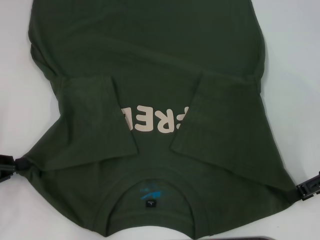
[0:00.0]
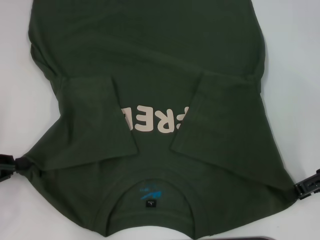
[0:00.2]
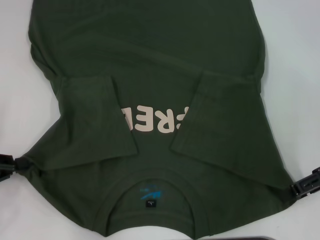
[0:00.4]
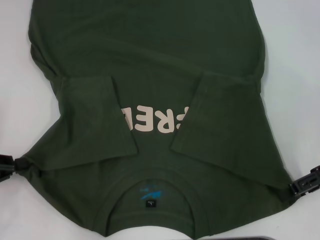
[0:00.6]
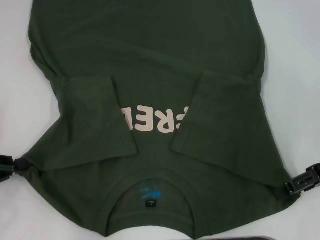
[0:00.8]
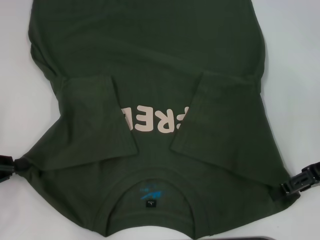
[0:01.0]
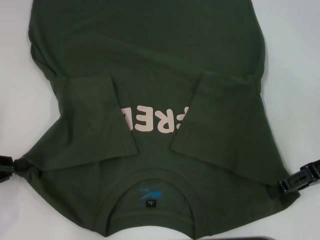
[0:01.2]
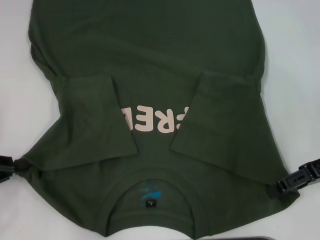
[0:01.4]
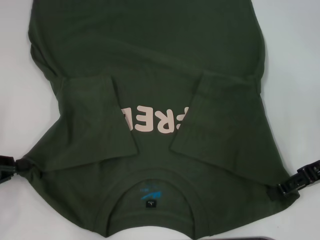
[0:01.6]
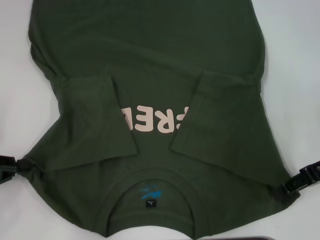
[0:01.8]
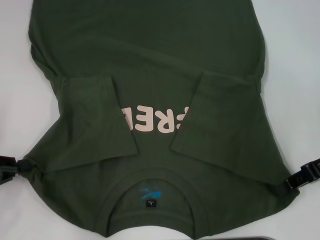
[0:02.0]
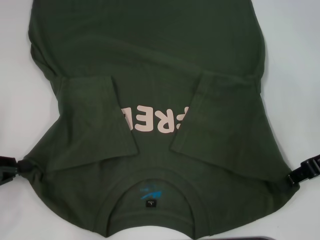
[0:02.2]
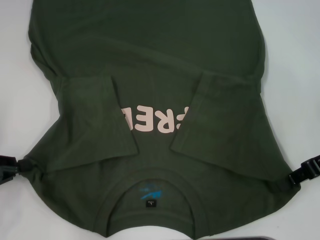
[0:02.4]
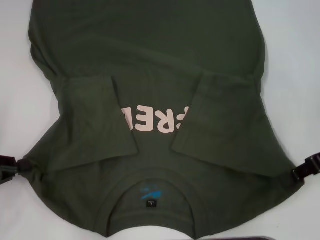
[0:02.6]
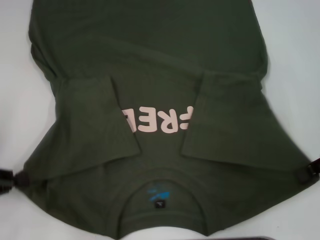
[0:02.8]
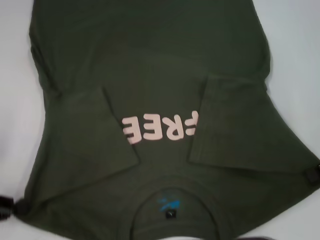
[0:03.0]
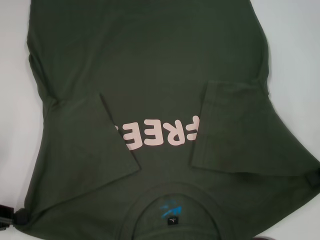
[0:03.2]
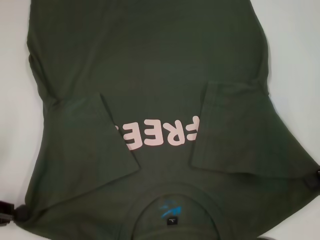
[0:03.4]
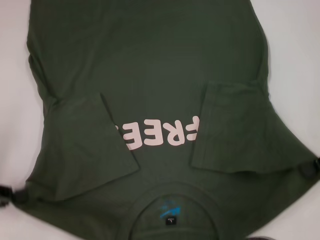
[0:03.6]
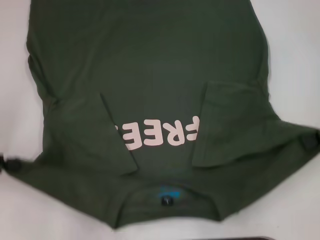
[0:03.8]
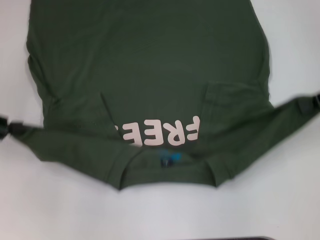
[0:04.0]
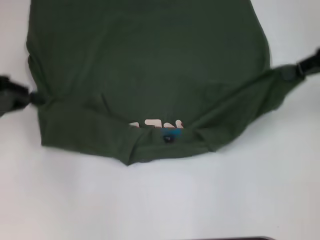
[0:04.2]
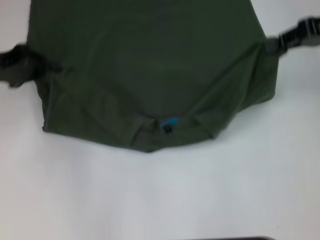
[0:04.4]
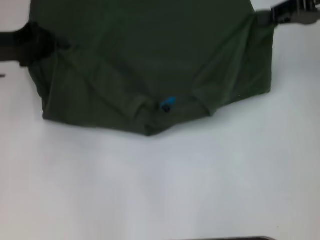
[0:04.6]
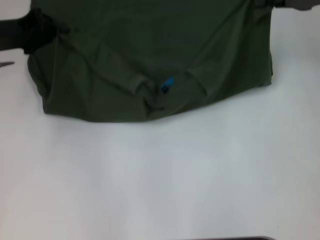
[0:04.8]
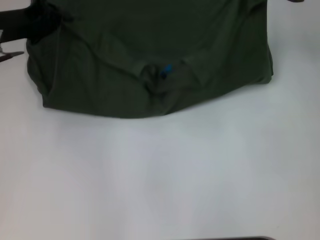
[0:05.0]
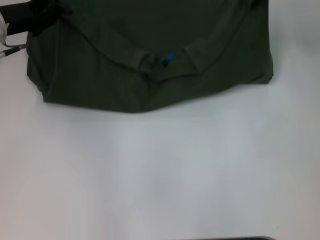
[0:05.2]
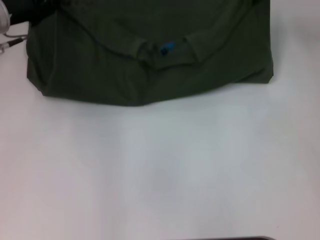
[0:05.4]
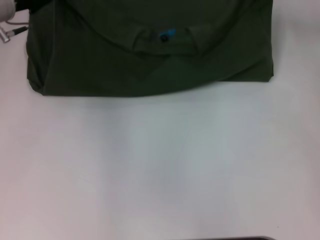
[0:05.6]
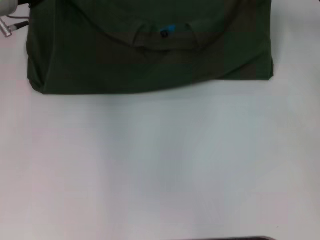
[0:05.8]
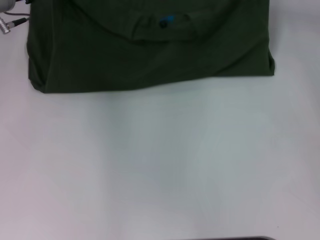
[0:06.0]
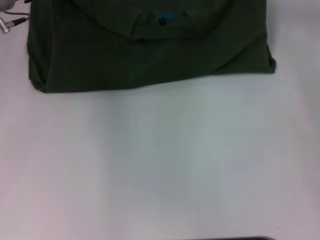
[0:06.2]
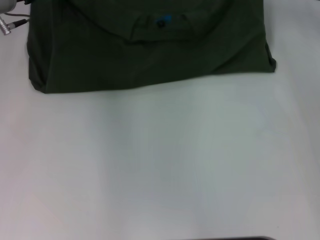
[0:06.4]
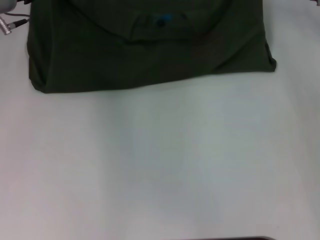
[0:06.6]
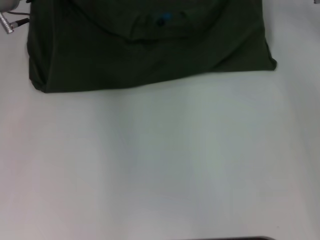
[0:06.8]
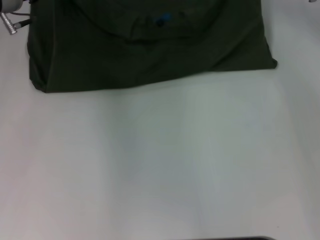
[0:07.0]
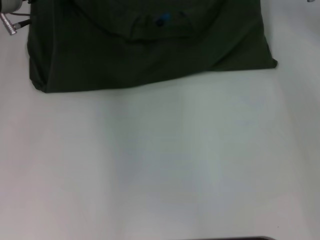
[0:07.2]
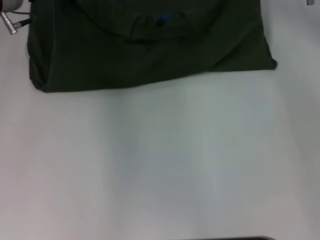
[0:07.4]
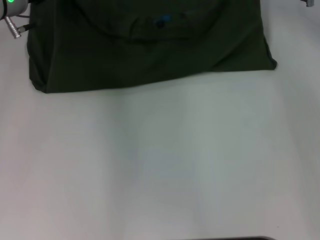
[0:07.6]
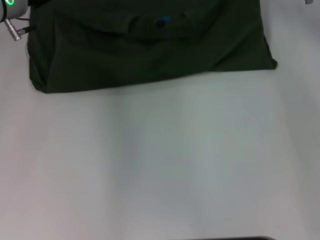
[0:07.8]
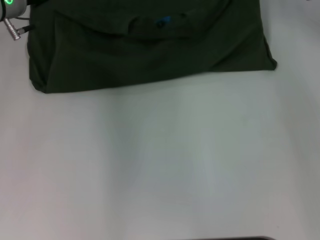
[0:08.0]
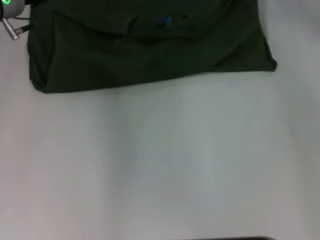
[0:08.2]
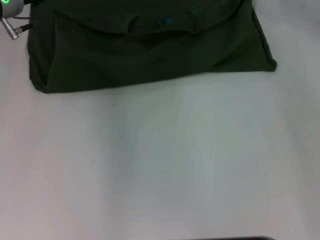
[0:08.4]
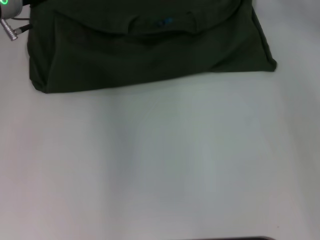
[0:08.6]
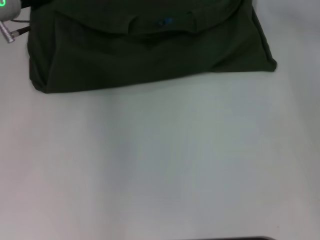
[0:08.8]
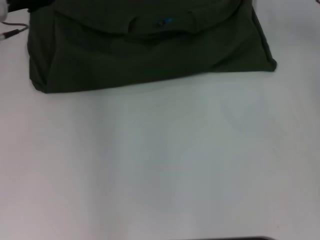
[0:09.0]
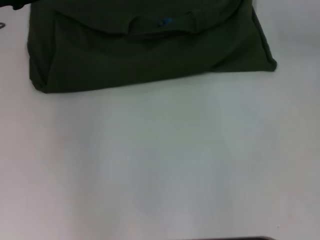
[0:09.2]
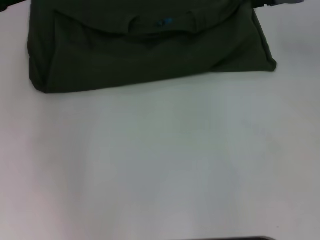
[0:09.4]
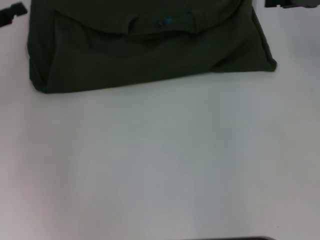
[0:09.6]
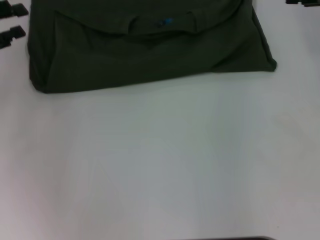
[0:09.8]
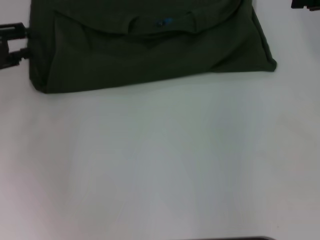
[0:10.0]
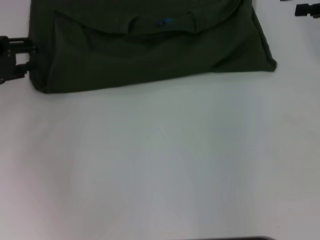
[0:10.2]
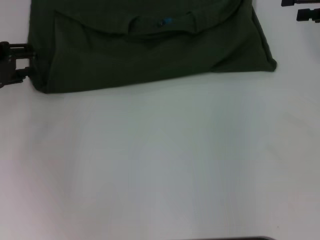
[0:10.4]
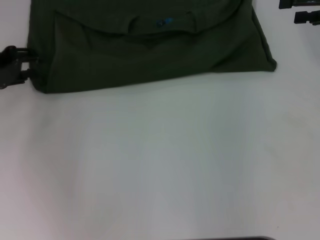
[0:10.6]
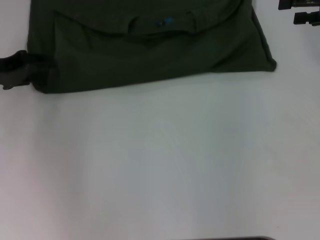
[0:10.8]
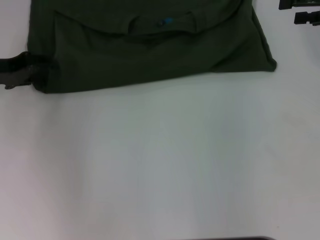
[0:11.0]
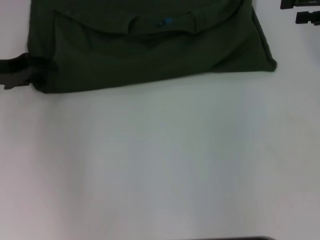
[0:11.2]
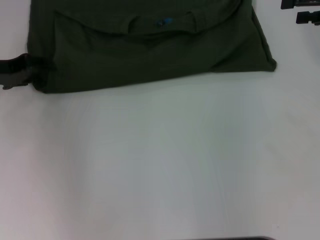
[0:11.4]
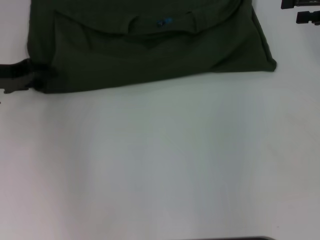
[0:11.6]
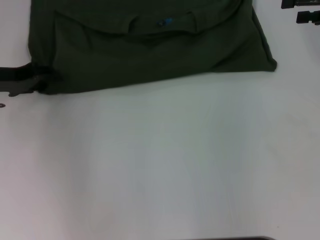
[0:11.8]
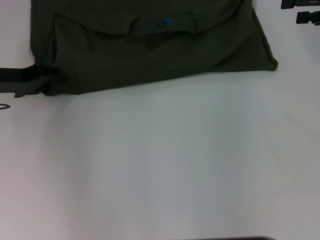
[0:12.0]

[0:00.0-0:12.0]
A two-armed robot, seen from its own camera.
Step, 0:00.0 to 0:02.2: Grab the bottom right corner with your right hand.
Step, 0:02.4 to 0:07.8: Fold the clothes with your left hand.
0:00.0 to 0:01.6: The grippers stay close to where they were, moving slightly.
0:01.6 to 0:03.0: The right gripper shifts by approximately 5 cm, and closes.
0:03.0 to 0:04.4: Both grippers move forward and upward, roughly 15 cm.
0:04.4 to 0:06.0: The left gripper goes about 15 cm forward and to the right; the right gripper heads forward, covering some 10 cm.
0:06.0 to 0:07.6: The right gripper moves about 5 cm.
0:07.6 to 0:09.0: The left gripper opens up. The right gripper shifts by roughly 5 cm, and opens.
0:09.0 to 0:10.4: The right gripper goes approximately 10 cm to the right and backward; the left gripper travels to the left and backward by some 10 cm.
0:10.4 to 0:12.0: The left gripper changes place by approximately 5 cm.

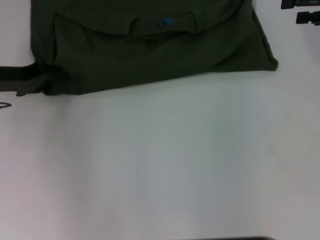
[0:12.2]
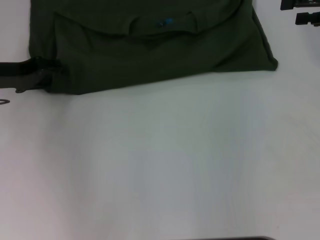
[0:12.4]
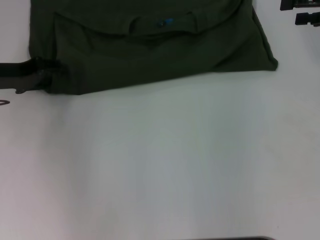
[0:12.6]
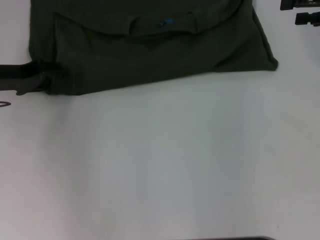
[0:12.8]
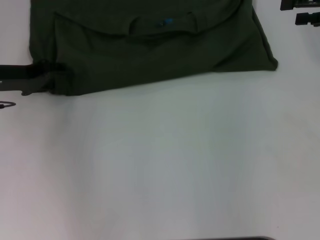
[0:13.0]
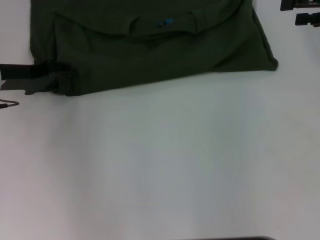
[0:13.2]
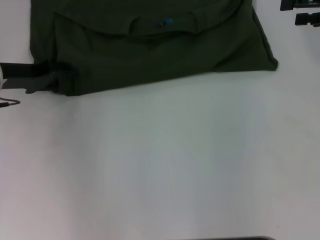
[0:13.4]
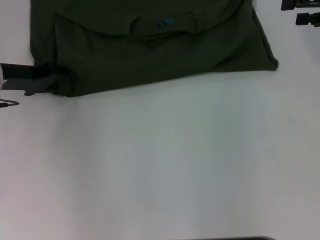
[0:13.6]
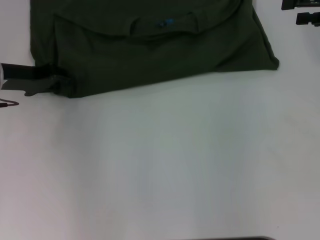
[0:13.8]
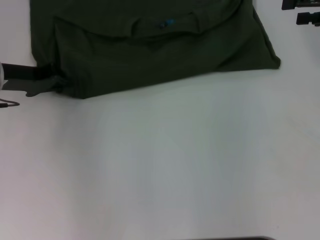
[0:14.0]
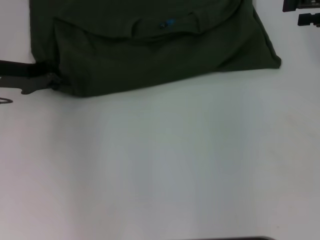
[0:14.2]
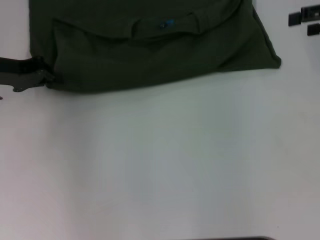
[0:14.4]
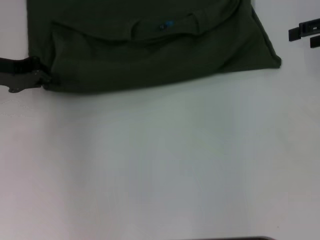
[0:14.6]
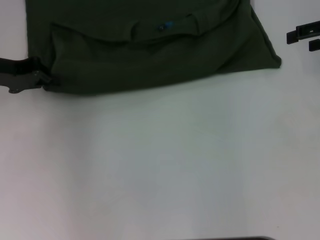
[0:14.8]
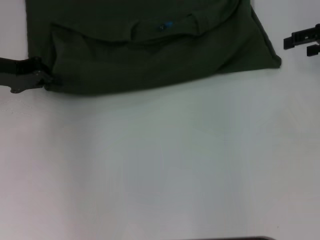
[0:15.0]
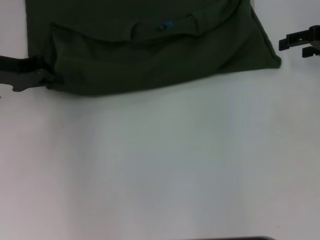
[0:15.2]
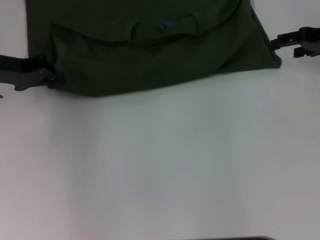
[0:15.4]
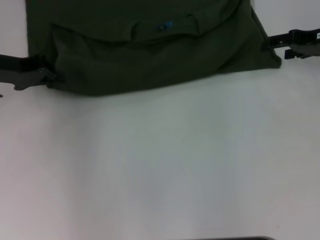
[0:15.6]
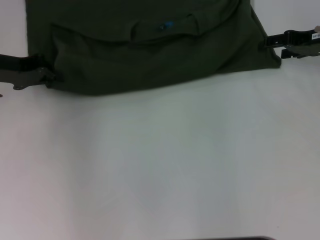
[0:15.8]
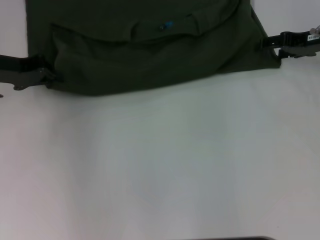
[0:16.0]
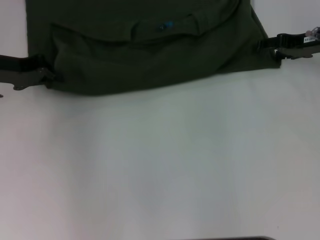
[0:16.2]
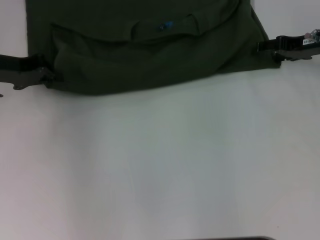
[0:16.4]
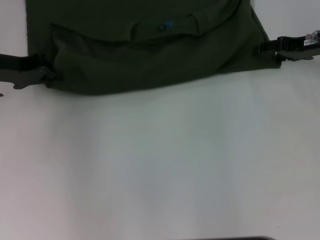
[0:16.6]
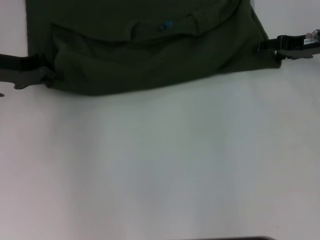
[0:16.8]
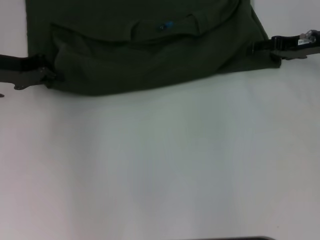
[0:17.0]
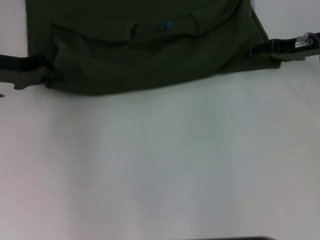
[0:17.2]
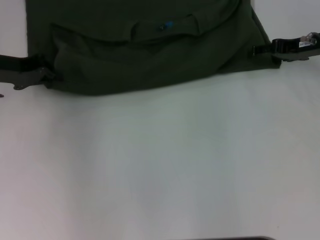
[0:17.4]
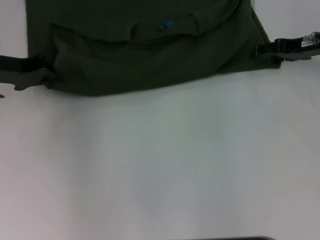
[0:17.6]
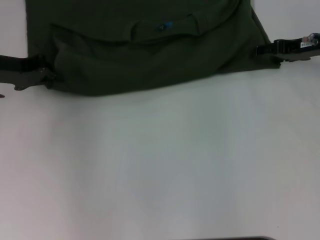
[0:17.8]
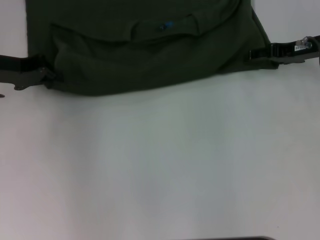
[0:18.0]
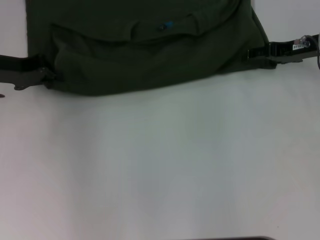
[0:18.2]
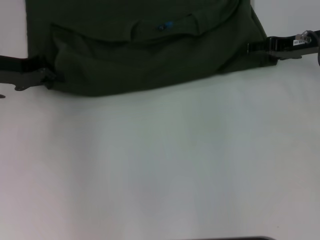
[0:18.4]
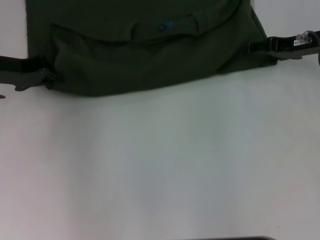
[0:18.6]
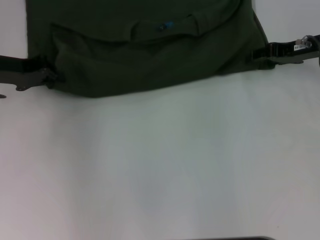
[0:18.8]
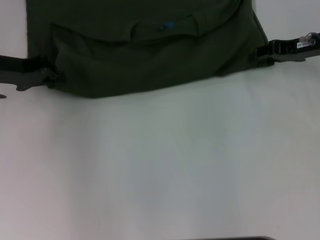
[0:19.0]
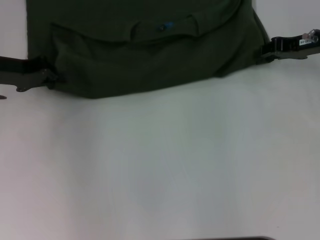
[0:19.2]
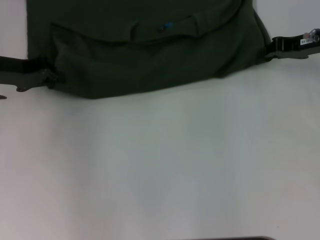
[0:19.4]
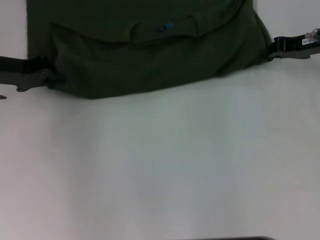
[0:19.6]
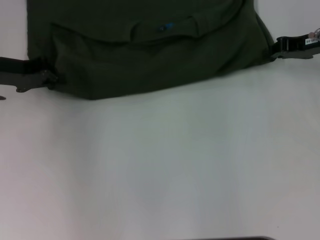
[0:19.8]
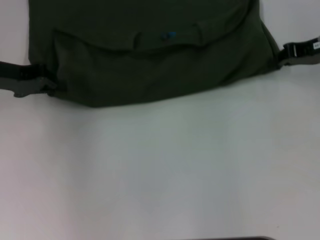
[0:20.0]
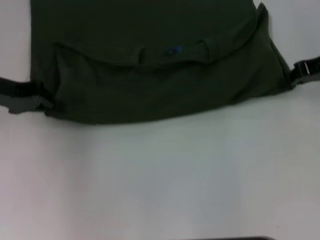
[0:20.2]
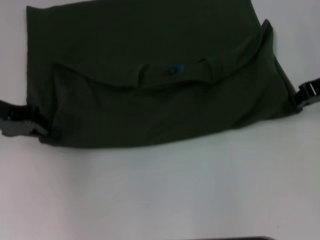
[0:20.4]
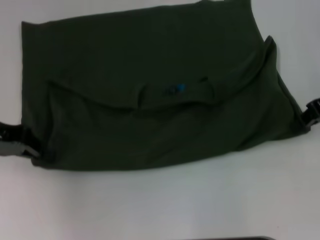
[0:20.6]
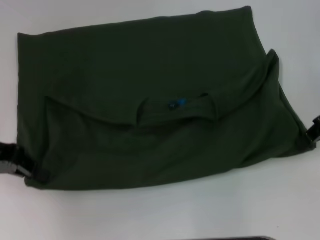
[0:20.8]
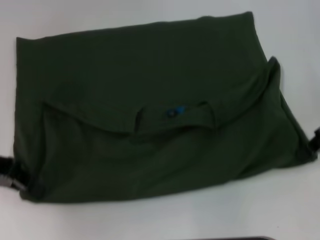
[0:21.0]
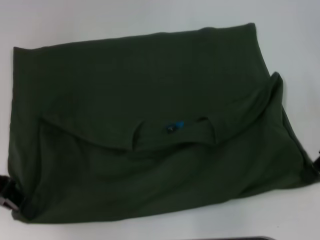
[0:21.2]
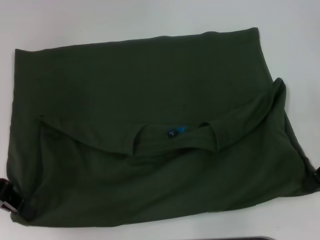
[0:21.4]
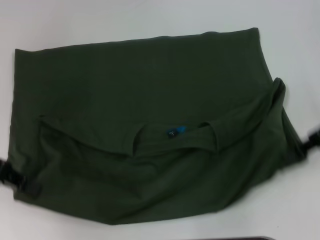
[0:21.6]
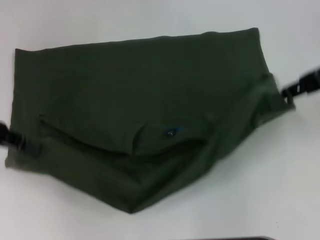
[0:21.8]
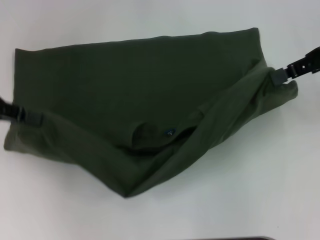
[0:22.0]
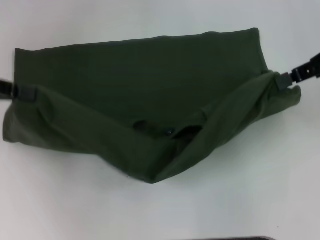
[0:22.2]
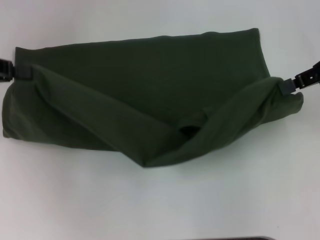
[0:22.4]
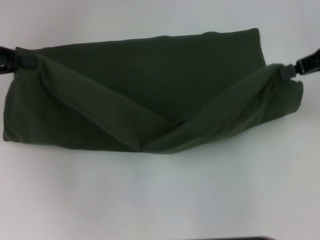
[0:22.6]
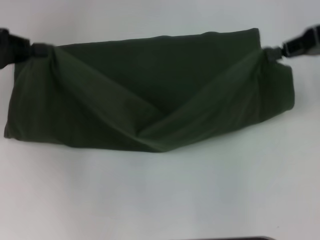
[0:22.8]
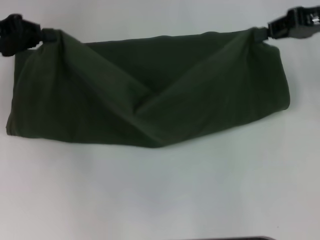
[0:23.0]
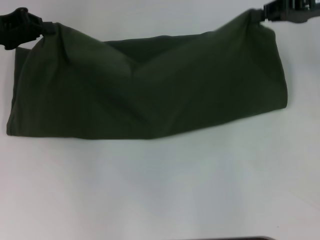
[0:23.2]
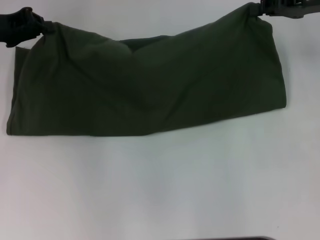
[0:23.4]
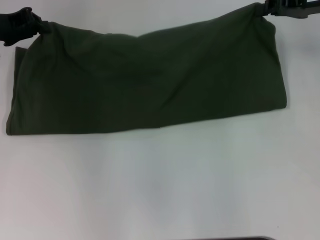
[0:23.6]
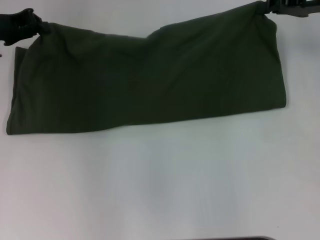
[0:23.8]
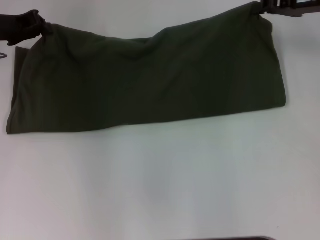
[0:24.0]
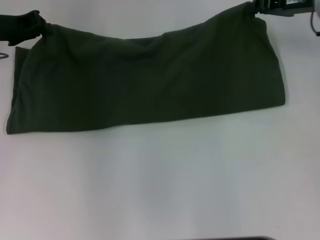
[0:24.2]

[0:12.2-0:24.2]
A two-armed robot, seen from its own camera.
Step, 0:12.2 to 0:21.2: Pull the clothes with your left hand.
Step, 0:12.2 to 0:21.2: Pull the clothes with your right hand.
0:12.2 to 0:13.8: The grippers make only small movements.
0:13.8 to 0:15.2: The left gripper closes its fingers.
0:15.2 to 0:16.6: The right gripper changes place by about 5 cm.
0:16.6 to 0:18.2: The grippers move only a little.
0:18.2 to 0:19.8: The right gripper closes its fingers.
0:19.8 to 0:21.2: The grippers both shift backward by about 10 cm.
0:21.2 to 0:22.6: The left gripper shifts by roughly 10 cm. The right gripper shifts roughly 5 cm upward.
0:22.6 to 0:24.2: The right gripper shifts some 10 cm forward, downward and to the left, while the left gripper is displaced forward and to the right by some 10 cm.
